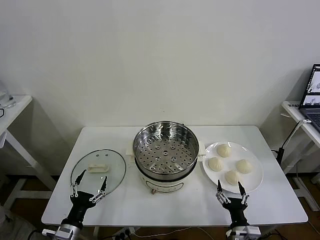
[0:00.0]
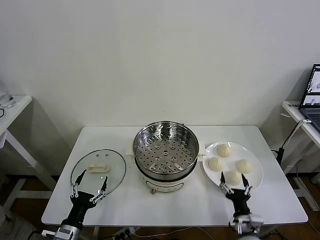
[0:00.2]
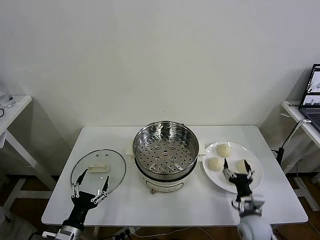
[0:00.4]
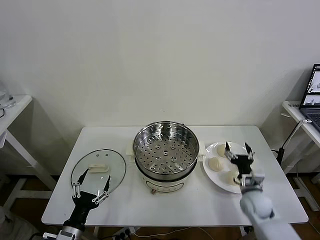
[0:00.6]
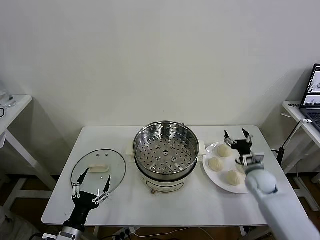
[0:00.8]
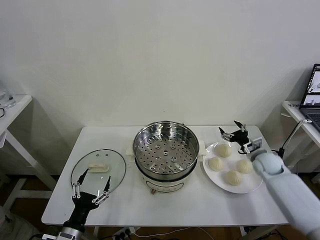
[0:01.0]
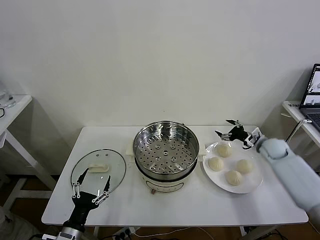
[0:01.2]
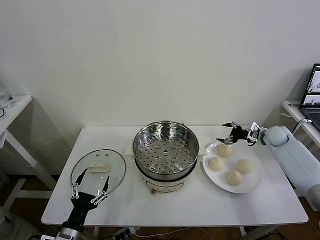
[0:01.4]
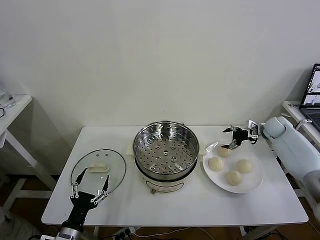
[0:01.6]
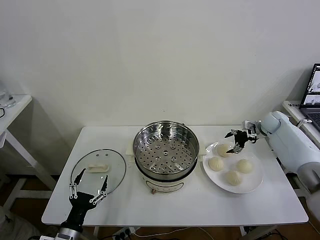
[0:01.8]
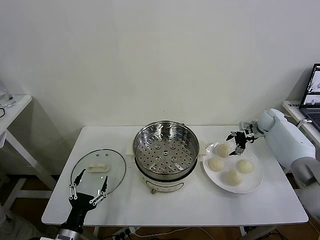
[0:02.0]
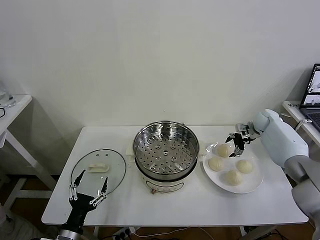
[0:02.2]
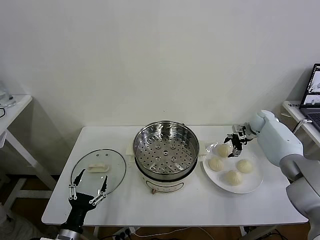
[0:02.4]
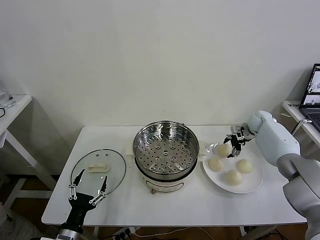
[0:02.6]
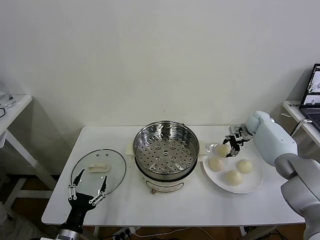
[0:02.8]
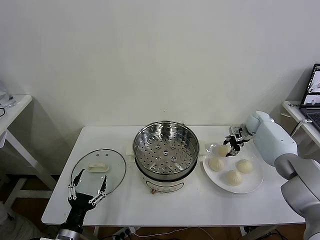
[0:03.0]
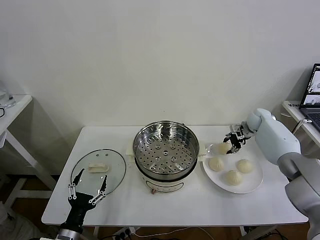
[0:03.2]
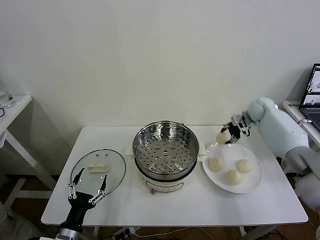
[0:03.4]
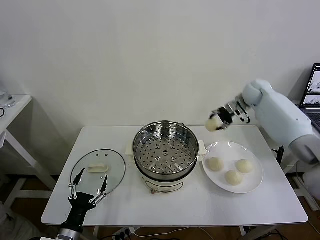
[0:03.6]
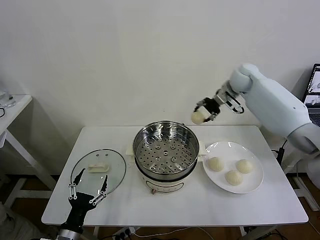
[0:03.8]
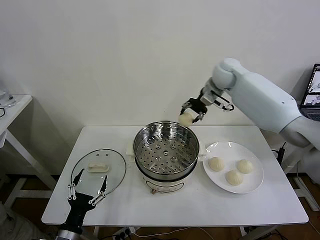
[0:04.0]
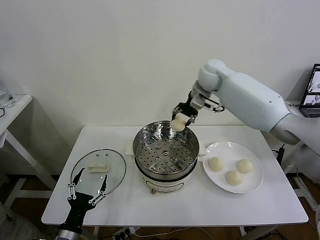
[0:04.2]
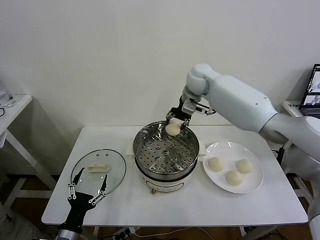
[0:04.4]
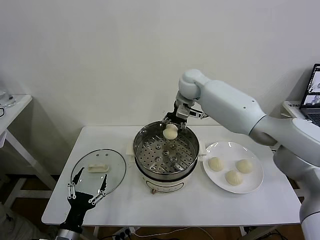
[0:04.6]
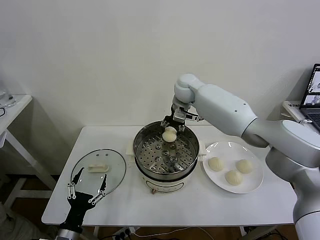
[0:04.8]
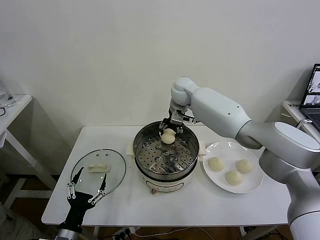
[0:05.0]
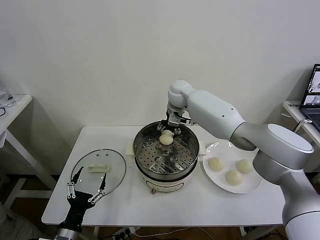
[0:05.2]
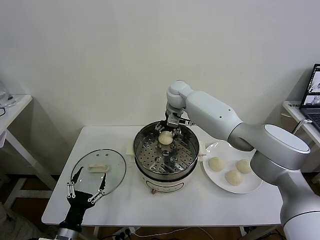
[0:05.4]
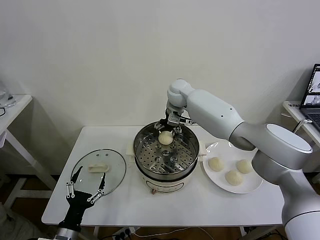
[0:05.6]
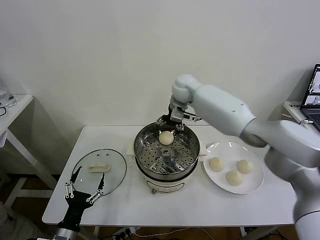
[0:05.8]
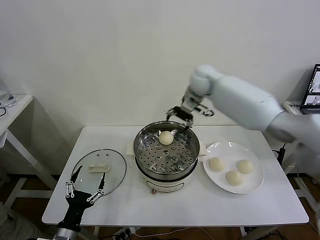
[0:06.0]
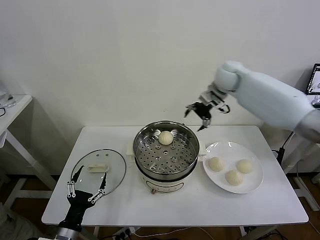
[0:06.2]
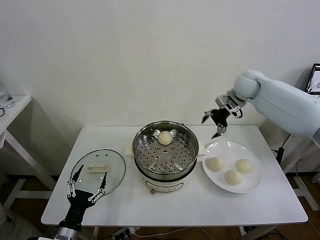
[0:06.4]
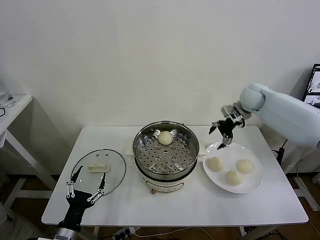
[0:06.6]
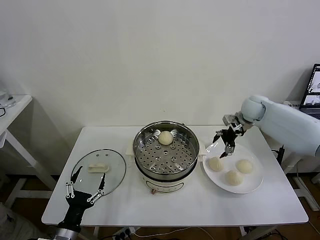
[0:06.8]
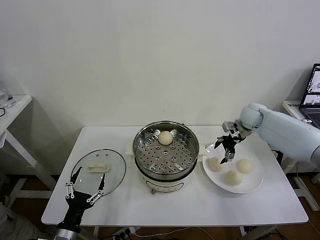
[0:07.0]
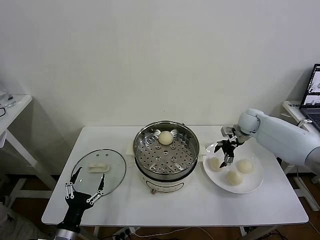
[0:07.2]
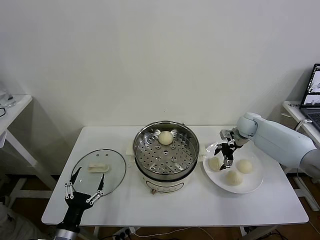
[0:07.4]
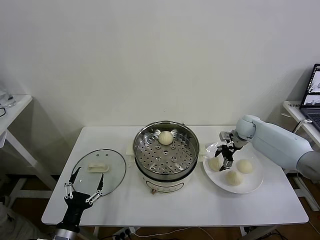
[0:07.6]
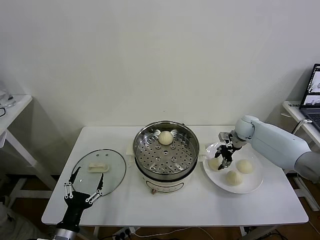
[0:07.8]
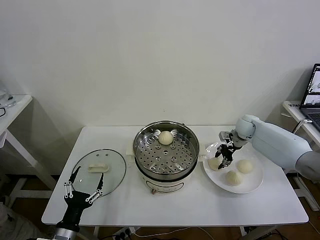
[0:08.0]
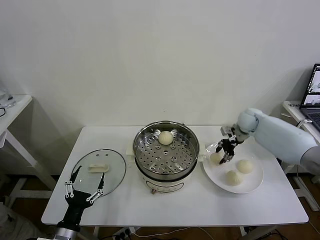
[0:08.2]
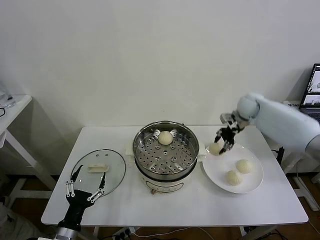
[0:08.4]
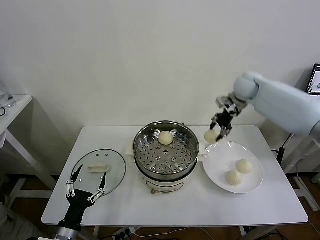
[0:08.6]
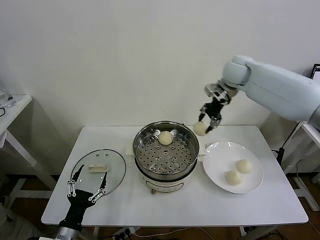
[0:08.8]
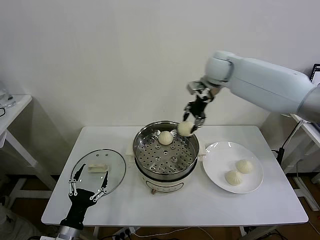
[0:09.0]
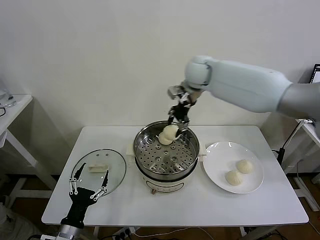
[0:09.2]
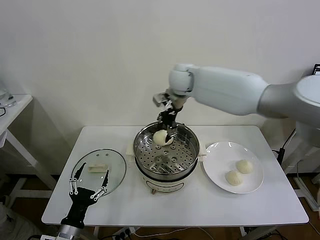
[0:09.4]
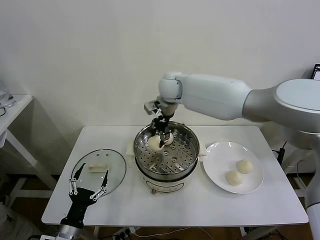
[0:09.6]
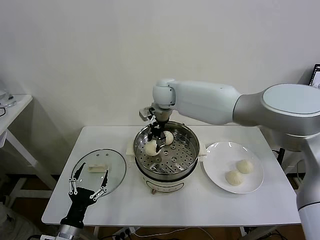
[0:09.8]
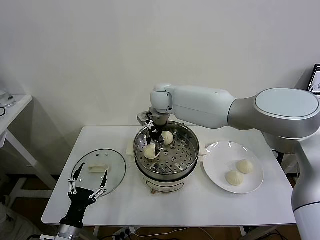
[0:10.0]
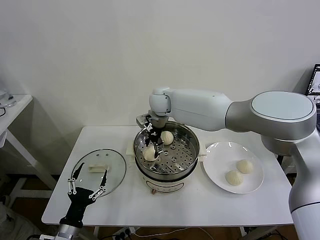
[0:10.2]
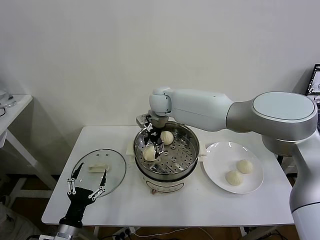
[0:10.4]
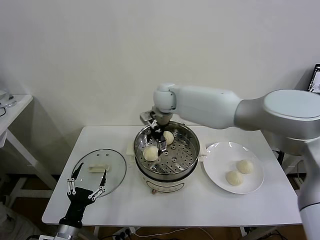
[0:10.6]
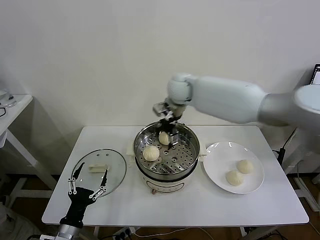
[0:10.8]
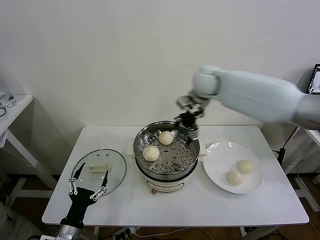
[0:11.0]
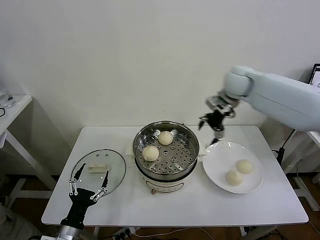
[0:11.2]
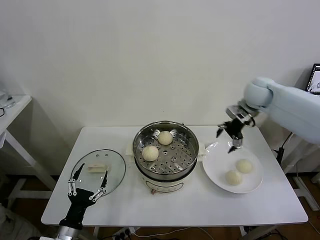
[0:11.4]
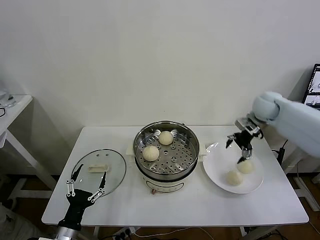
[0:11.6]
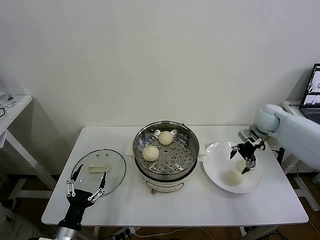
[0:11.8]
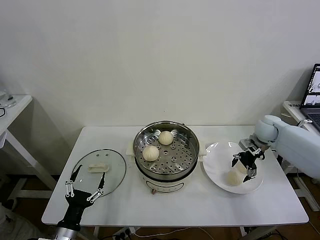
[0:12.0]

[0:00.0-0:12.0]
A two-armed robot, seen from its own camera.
Task of the whole recording: take steamed baozi put them in steamer then cover it.
Step, 0:00.0 to 0:02.8: Grasp the baozi in the plate with right gripper.
Step, 0:03.0 to 0:05.6: Place the baozi on the steamer with right gripper.
Step, 0:05.8 to 0:07.8: Grasp the baozi in the plate with right gripper.
Step, 0:08.0 to 0:10.2: Place the baozi on the steamer with right gripper.
0:01.6 to 0:03.0: The right gripper changes place by about 5 cm, and closes its fingers.
0:03.0 to 0:04.4: The right gripper moves to the left and upward, some 35 cm.
0:04.4 to 0:06.0: The right gripper goes about 10 cm to the right, and opens up.
0:06.0 to 0:07.6: The right gripper is displaced downward and to the right by some 25 cm, and closes up.
0:07.6 to 0:09.0: The right gripper travels upward and to the left by some 30 cm.
0:09.0 to 0:10.4: The right gripper is displaced to the left and downward by about 20 cm, and opens its fingers.
0:10.4 to 0:12.0: The right gripper moves to the right, approximately 40 cm.

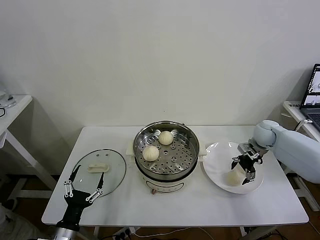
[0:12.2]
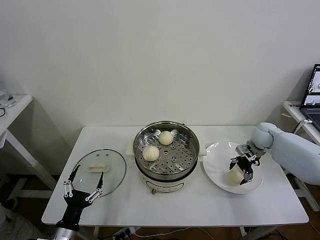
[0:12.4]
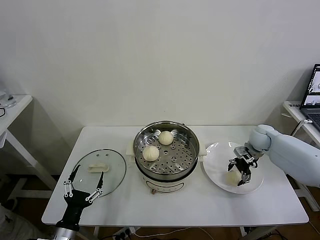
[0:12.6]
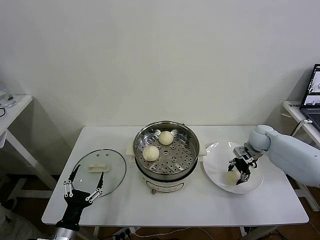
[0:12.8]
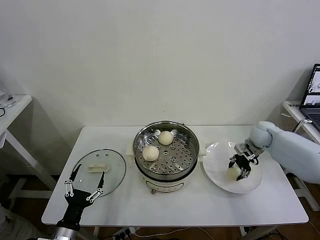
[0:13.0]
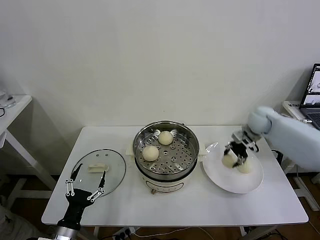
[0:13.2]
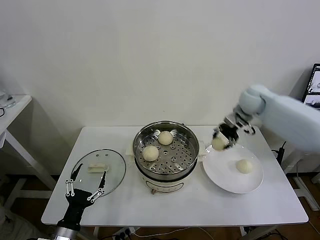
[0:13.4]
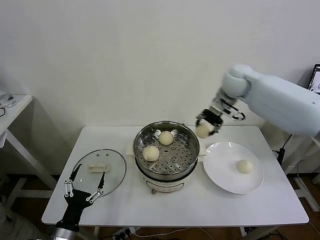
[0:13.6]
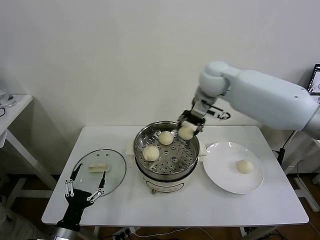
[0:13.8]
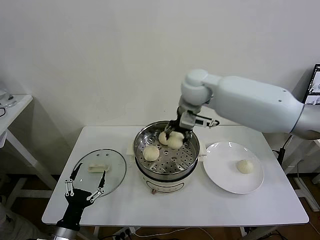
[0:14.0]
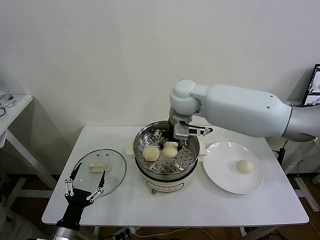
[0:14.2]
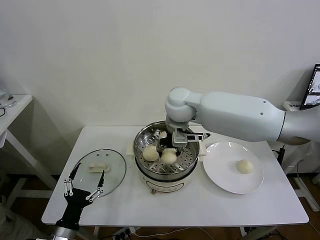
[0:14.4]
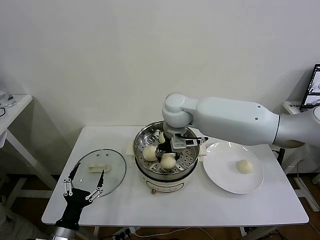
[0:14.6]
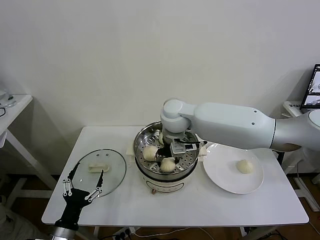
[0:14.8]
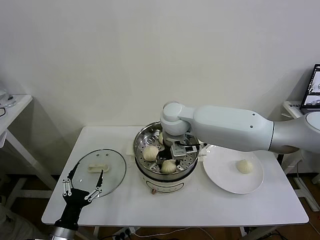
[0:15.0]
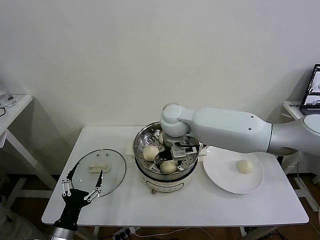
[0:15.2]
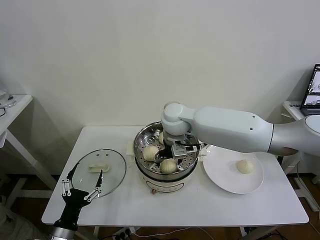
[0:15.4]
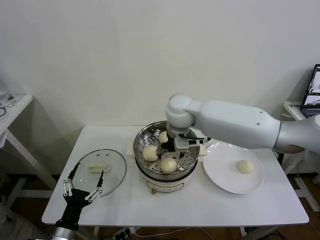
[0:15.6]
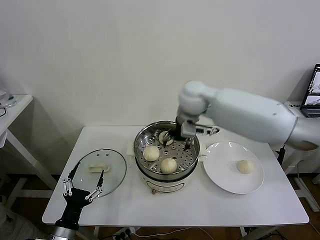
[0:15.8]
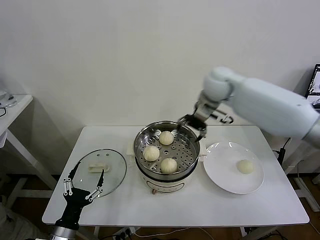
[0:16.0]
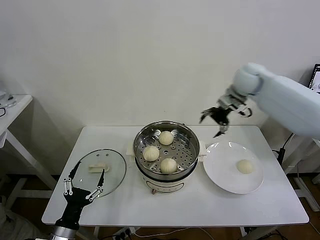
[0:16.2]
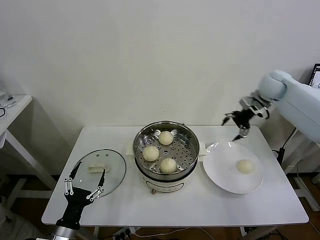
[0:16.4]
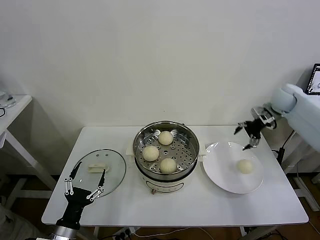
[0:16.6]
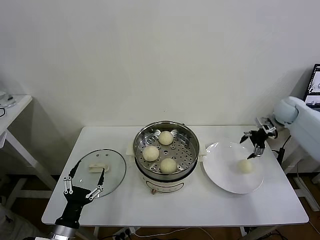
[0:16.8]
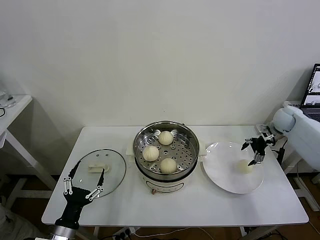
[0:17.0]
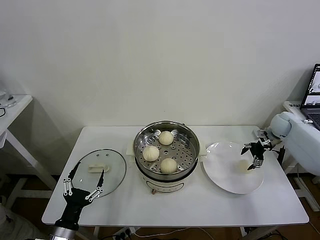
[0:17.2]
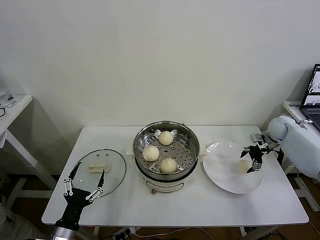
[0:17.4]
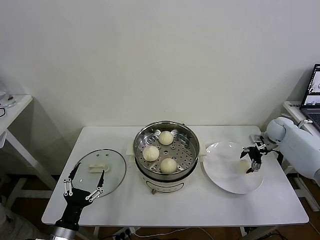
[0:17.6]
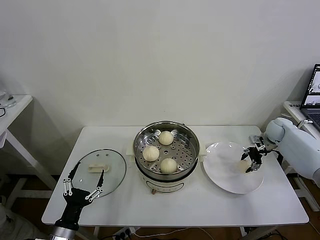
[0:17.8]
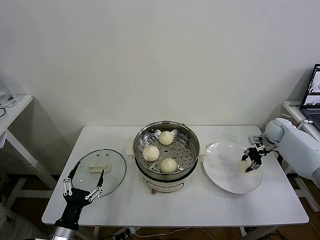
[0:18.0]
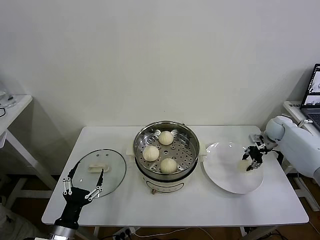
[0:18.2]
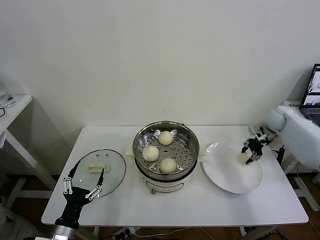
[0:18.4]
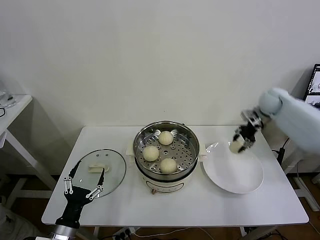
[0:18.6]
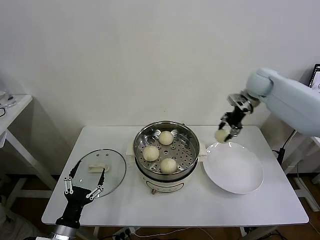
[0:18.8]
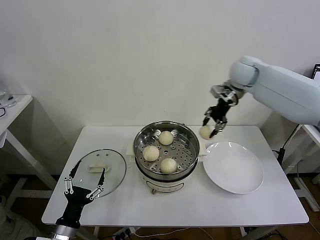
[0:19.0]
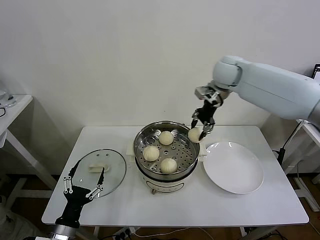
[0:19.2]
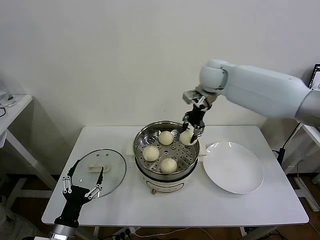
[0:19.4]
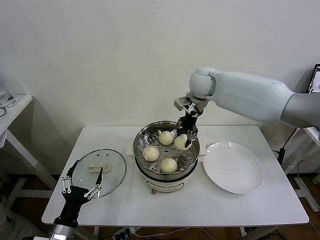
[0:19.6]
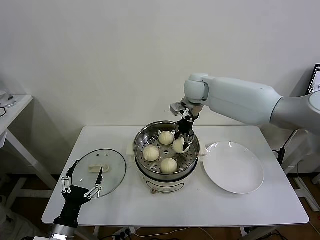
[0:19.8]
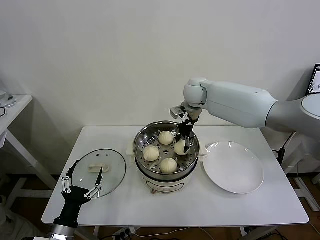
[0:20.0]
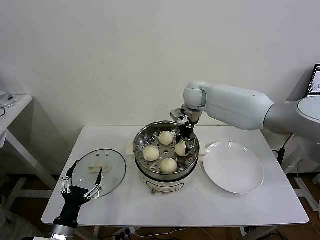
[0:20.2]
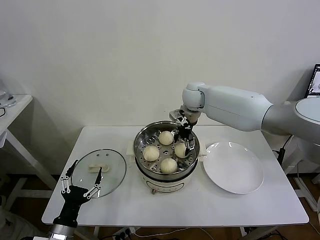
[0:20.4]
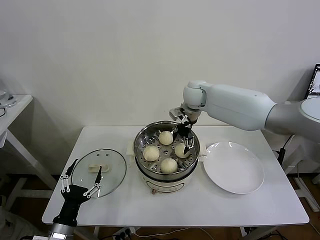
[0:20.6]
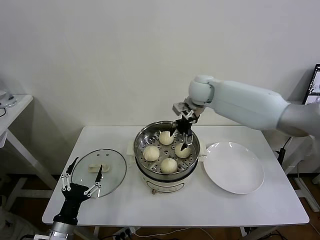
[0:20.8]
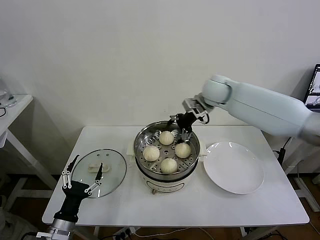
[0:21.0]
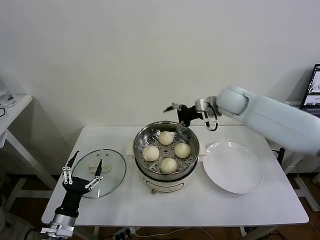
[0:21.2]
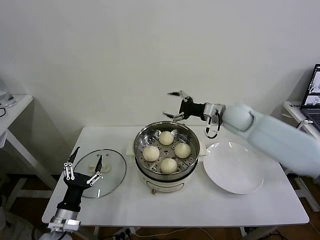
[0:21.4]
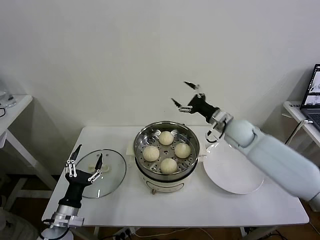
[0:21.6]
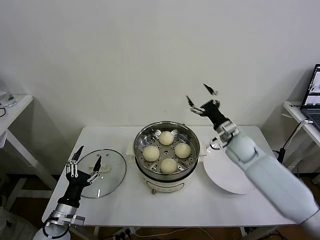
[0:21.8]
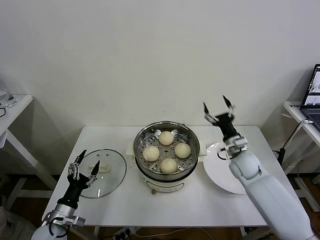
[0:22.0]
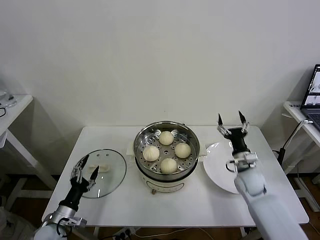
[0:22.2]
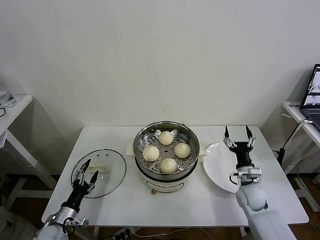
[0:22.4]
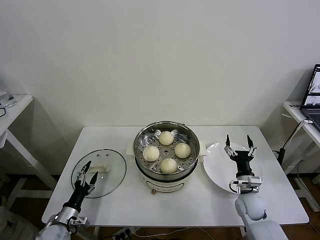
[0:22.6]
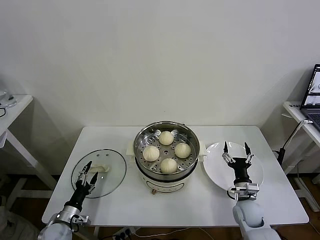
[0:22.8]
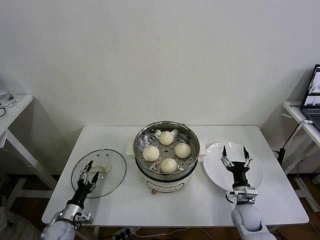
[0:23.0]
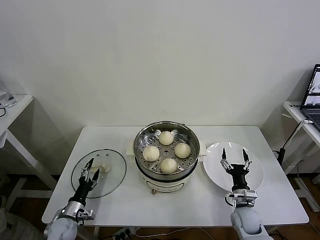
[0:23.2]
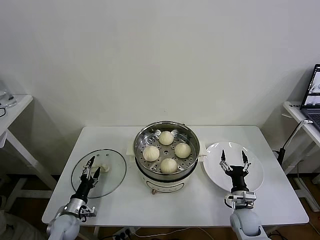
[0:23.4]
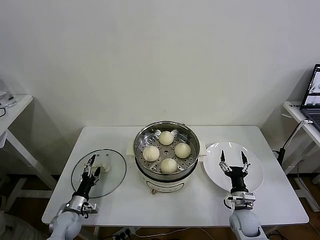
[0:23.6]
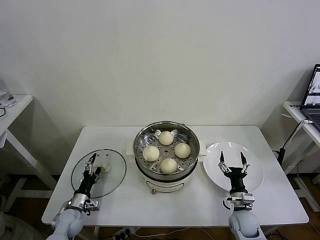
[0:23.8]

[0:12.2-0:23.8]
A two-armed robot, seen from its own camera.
Task of the whole recording: take steamed baozi put them in steamer then cover it.
Step, 0:13.0 to 0:15.4: Place the baozi on the steamer with right gripper.
Step, 0:15.6 to 0:18.0: Grasp the baozi in the plate with right gripper.
Step, 0:18.2 to 0:20.4: Place the baozi on the steamer with right gripper.
0:12.2 to 0:13.6: The right gripper goes approximately 30 cm upward and to the left, and closes.
0:13.6 to 0:15.0: The right gripper heads to the left, backward and downward, covering about 20 cm.
0:15.0 to 0:16.6: The right gripper moves to the right, approximately 40 cm, and opens its fingers.
0:16.6 to 0:18.0: The right gripper shifts some 15 cm downward, and closes its fingers.
0:18.0 to 0:19.4: The right gripper is displaced to the left and upward by roughly 40 cm.
0:19.4 to 0:21.0: The right gripper opens its fingers.
0:21.0 to 0:22.4: The left gripper heads downward, forward and to the left, covering roughly 10 cm. The right gripper heads downward, backward and to the right, covering roughly 40 cm.
0:22.4 to 0:23.8: The left gripper is displaced forward and downward by some 10 cm, while the right gripper heads downward and backward, covering some 10 cm.
